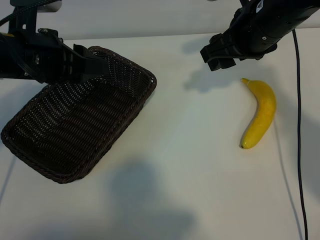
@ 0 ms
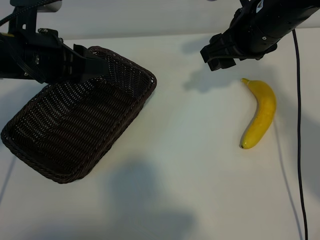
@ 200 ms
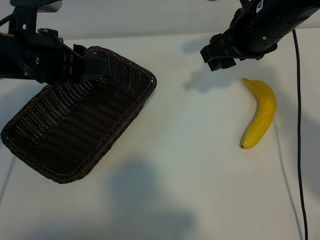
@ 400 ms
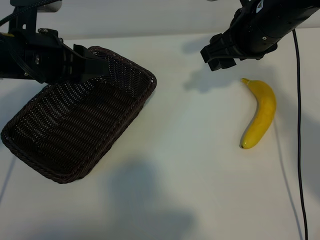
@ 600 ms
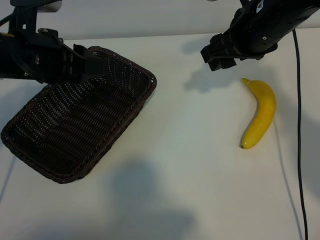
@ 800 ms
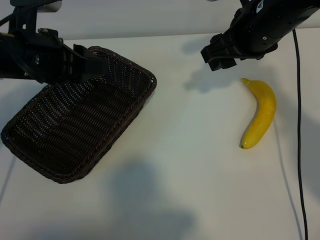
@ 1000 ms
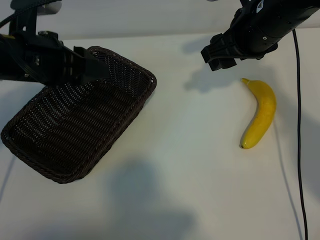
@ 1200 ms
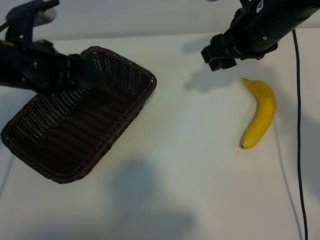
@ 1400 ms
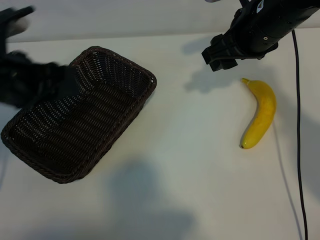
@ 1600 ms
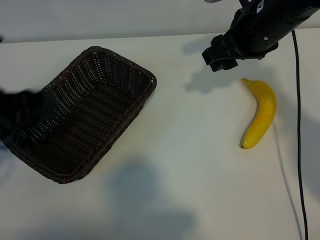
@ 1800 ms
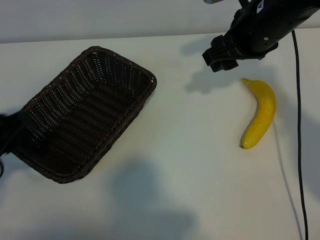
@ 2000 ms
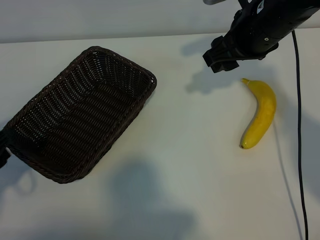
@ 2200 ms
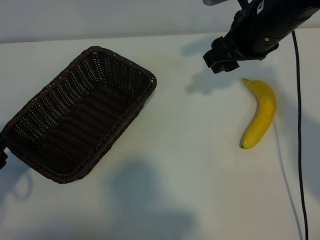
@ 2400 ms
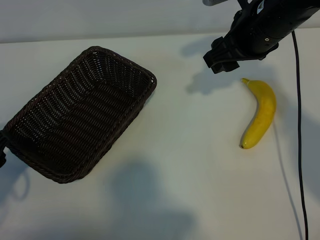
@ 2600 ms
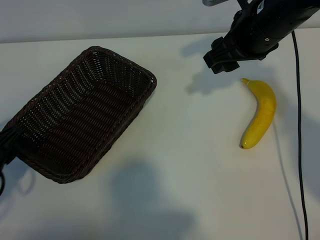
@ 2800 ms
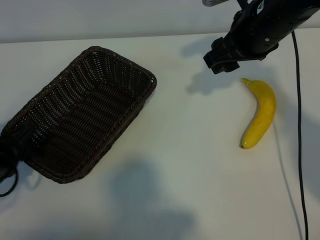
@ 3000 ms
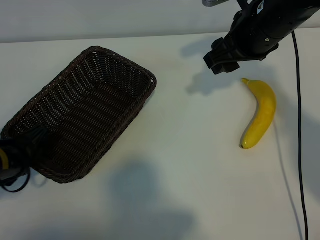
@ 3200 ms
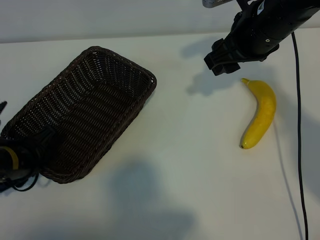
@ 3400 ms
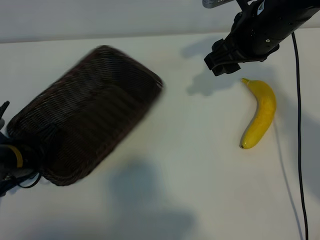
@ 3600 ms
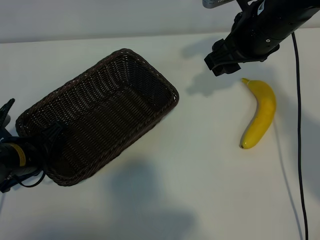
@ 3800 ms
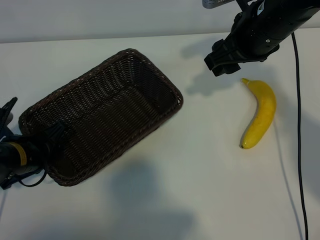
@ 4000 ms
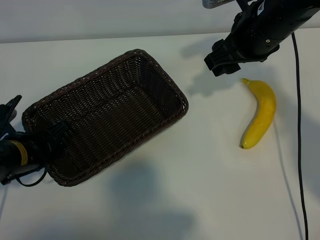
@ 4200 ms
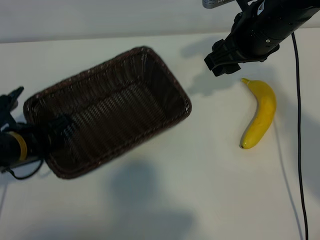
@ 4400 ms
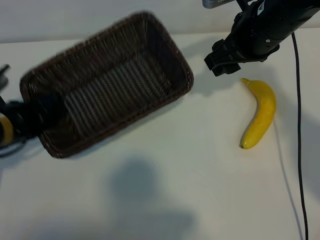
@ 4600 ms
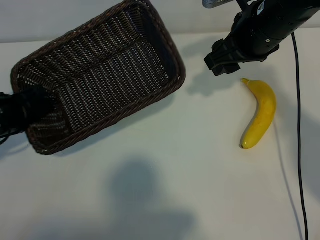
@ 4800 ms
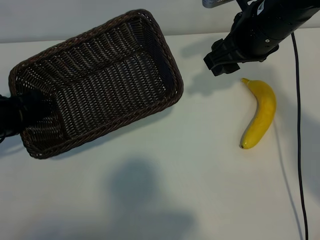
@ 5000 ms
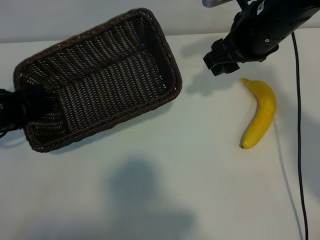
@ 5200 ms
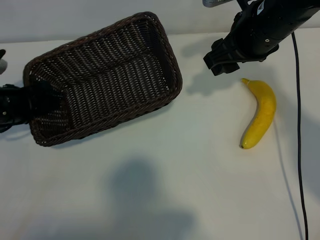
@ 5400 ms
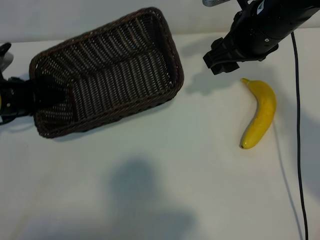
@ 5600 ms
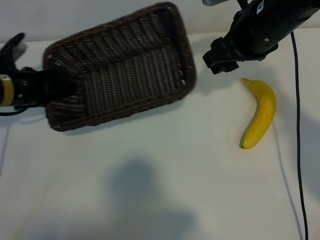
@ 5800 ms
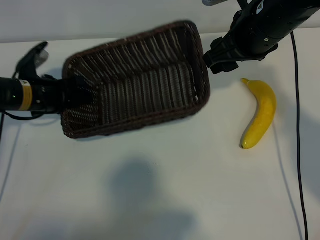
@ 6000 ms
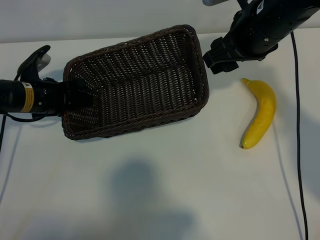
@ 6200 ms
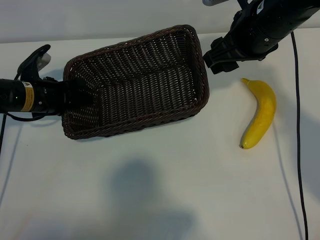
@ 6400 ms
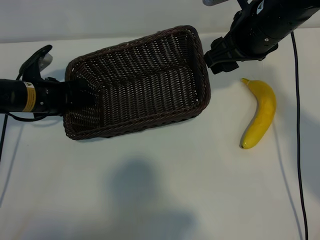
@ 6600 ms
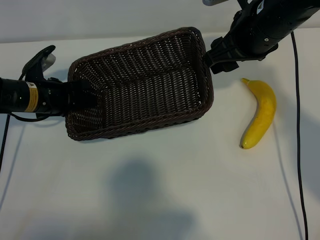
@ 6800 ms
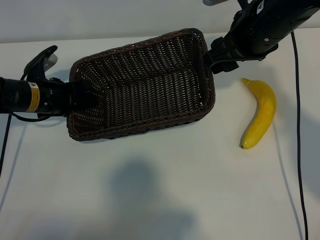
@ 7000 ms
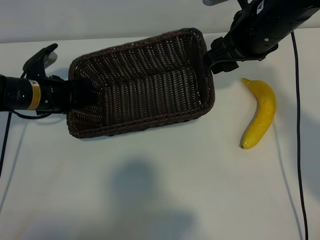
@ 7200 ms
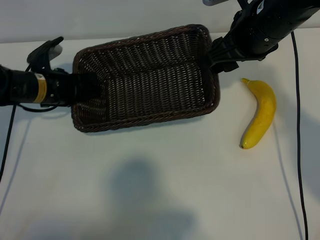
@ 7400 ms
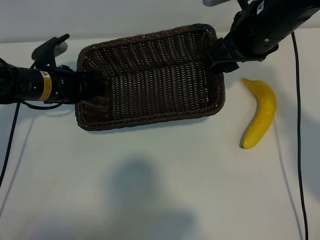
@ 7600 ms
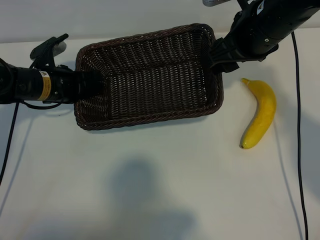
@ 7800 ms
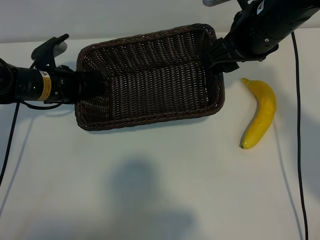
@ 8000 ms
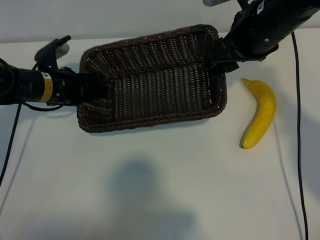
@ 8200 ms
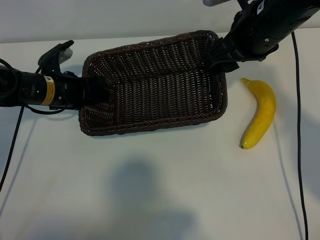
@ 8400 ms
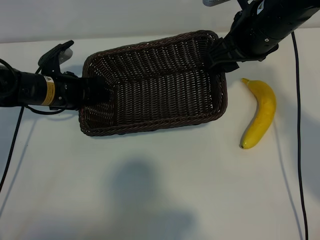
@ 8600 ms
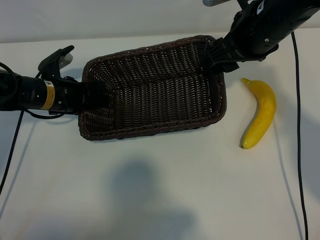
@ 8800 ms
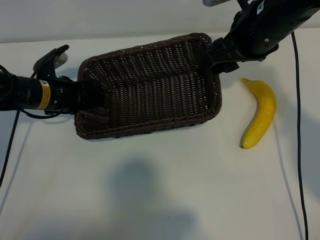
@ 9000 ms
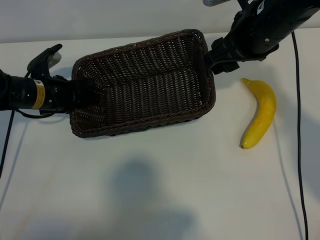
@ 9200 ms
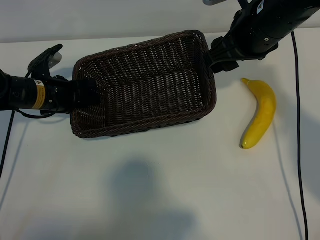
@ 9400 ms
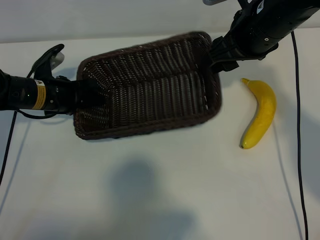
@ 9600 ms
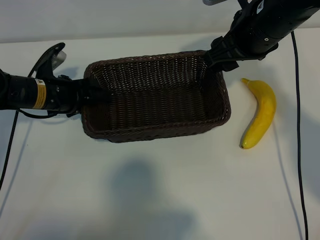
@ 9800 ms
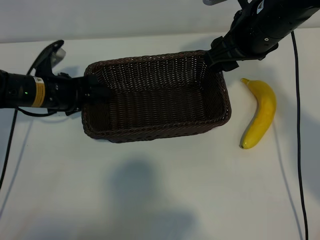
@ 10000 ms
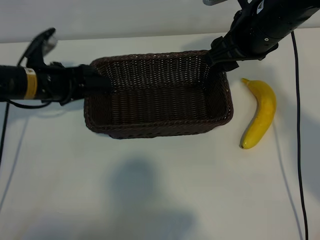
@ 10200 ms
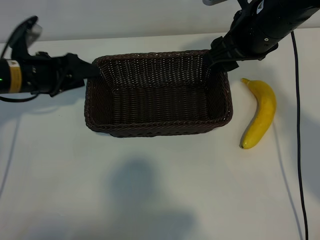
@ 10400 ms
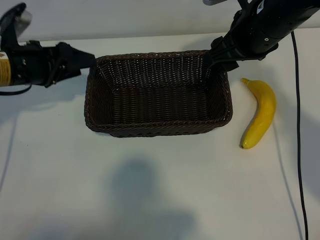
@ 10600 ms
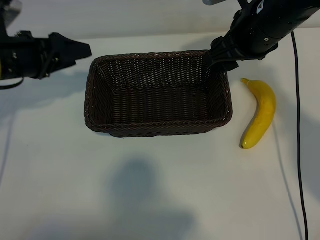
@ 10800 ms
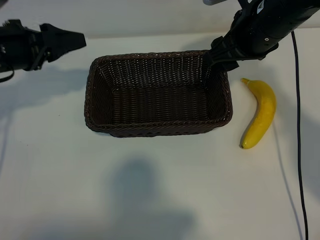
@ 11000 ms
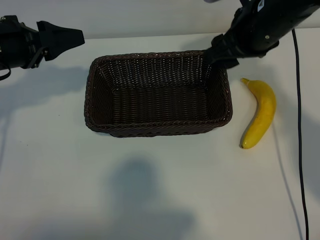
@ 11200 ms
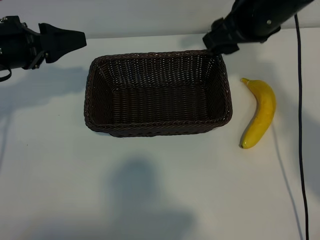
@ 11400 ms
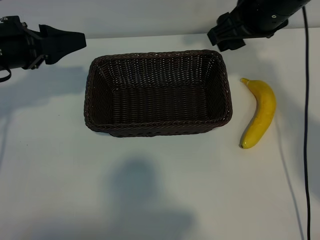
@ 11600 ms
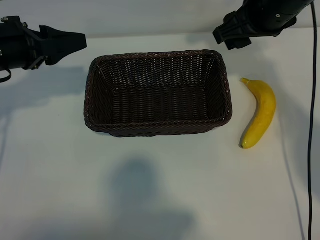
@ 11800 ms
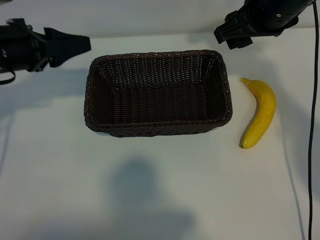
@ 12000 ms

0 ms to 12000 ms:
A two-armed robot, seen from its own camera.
Task of the whole recording: pick up the banana and put it into the basket.
Step, 1000 ms to 3600 ms: Grasp the basket with the left gripper.
Step, 3800 ms to 10200 ms: Place the basket in the center of the table with the left gripper.

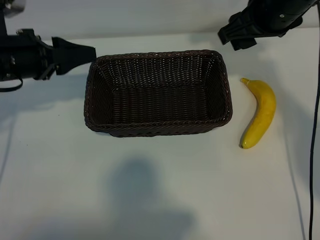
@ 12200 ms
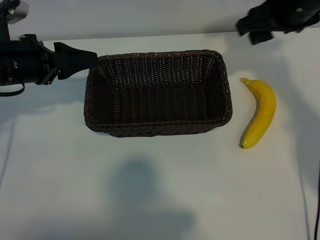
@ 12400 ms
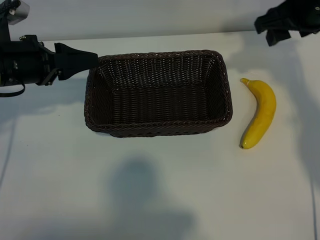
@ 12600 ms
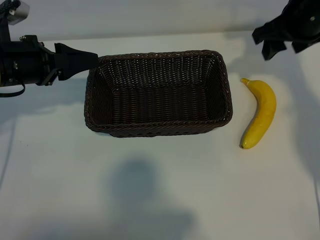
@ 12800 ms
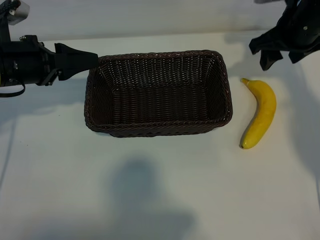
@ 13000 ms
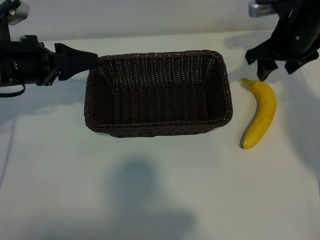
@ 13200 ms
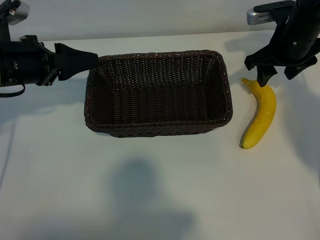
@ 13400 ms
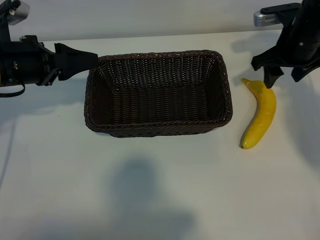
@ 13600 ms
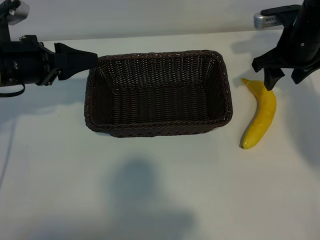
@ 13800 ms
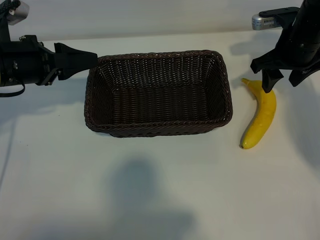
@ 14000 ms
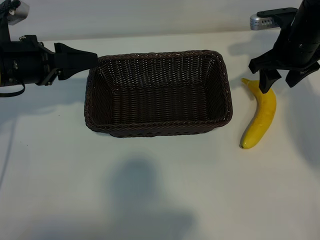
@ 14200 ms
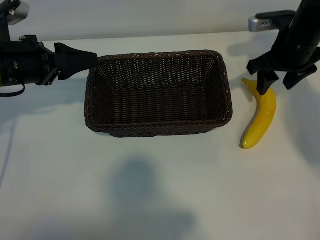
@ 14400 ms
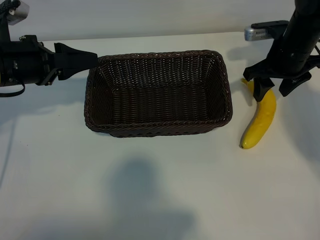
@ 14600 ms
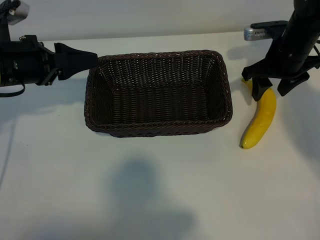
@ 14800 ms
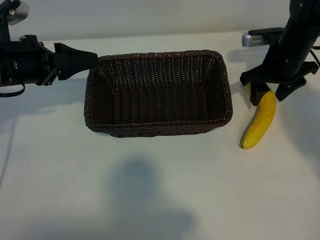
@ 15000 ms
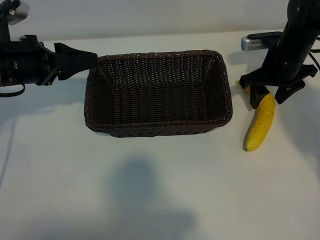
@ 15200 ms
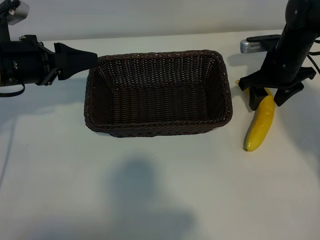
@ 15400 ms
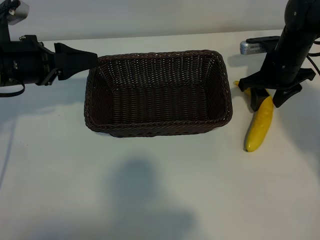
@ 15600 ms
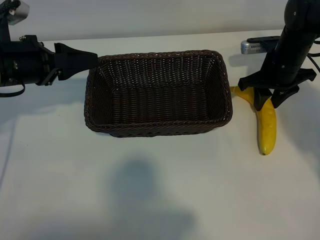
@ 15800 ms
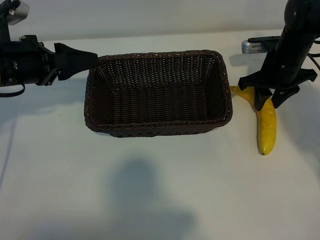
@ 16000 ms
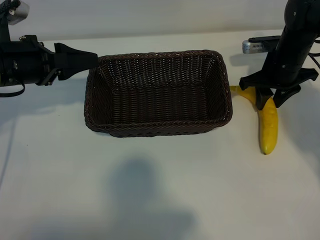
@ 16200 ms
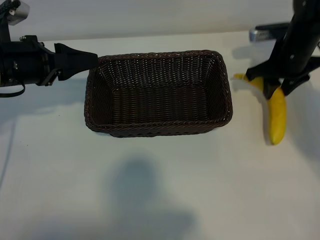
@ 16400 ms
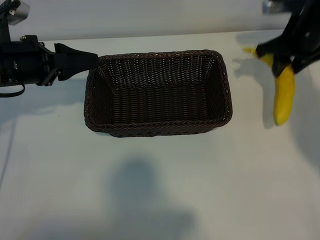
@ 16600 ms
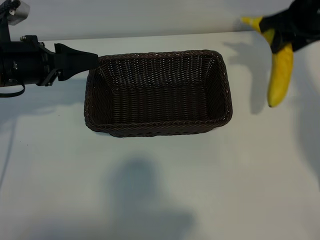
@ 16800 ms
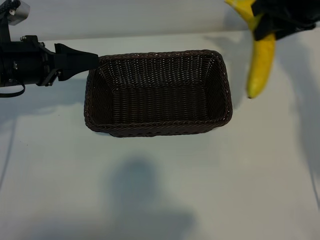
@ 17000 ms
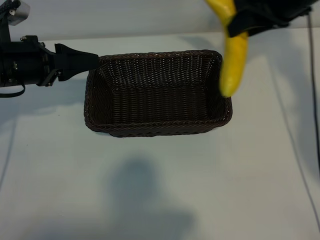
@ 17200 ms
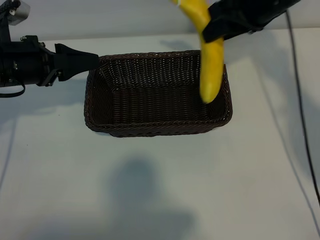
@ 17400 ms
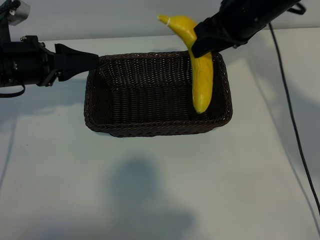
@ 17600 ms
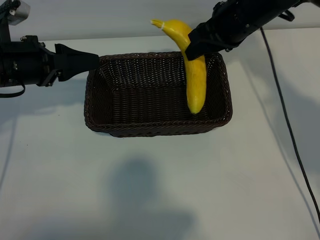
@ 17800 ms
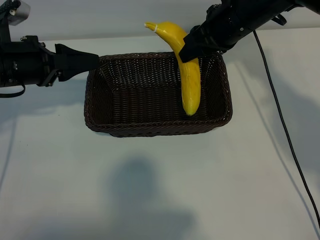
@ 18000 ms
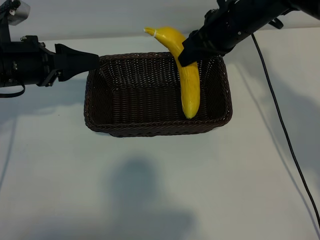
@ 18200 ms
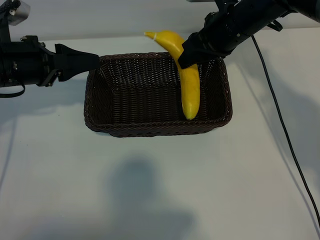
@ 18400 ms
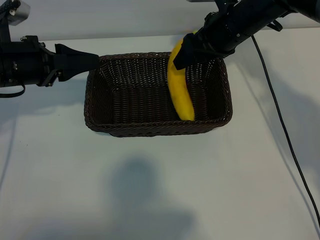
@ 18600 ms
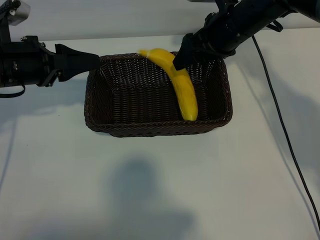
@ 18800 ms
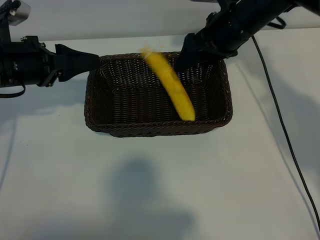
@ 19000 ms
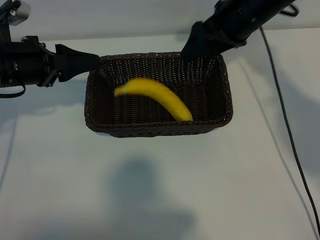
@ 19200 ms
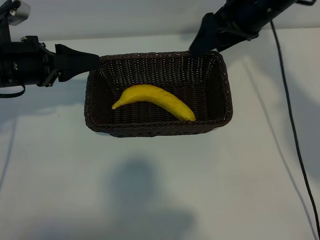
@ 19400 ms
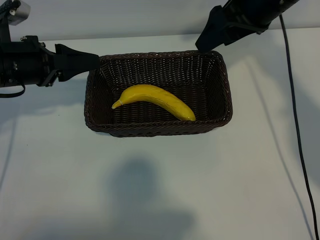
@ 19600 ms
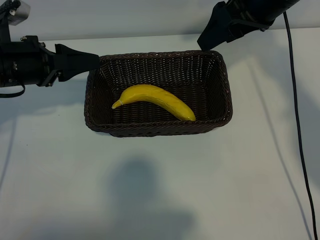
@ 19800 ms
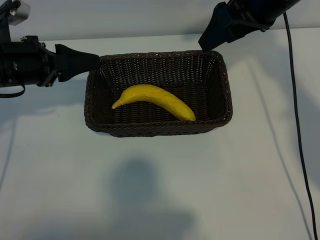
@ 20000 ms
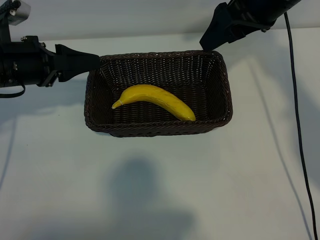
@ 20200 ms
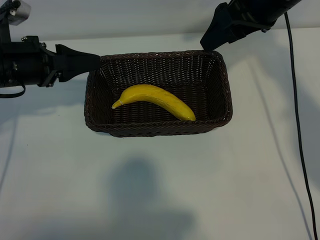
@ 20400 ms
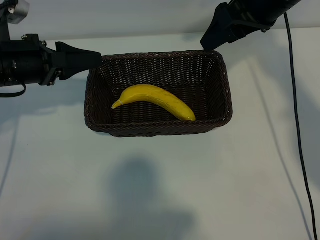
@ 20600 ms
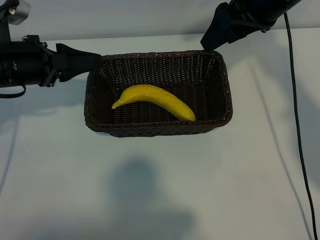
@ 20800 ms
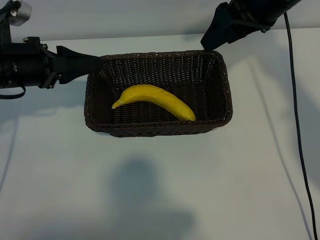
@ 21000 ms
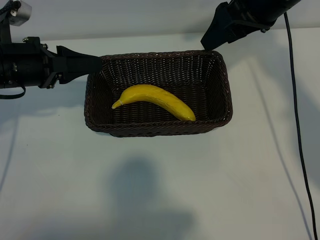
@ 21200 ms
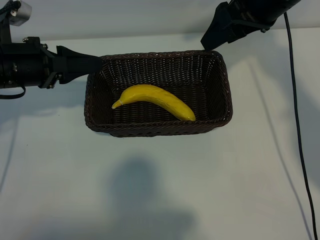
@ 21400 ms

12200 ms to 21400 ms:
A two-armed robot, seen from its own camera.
Task of the whole recording: pick up the banana and put it into the basket.
Step, 12200 ms to 15800 ms: Grasp the banana with right gripper.
Step, 16000 ms to 19200 ms: Place the banana in the basket with right gripper.
